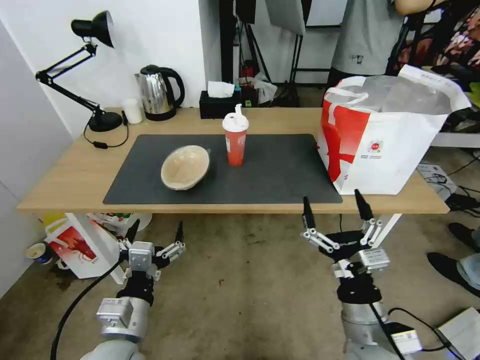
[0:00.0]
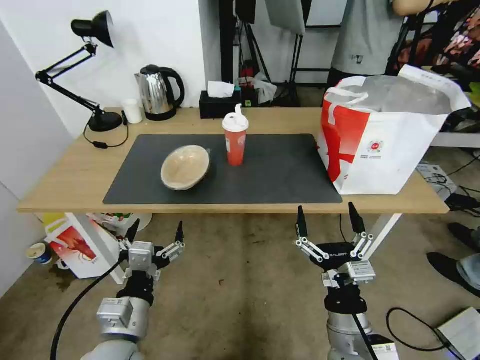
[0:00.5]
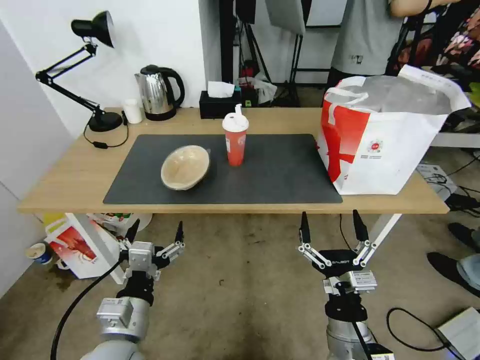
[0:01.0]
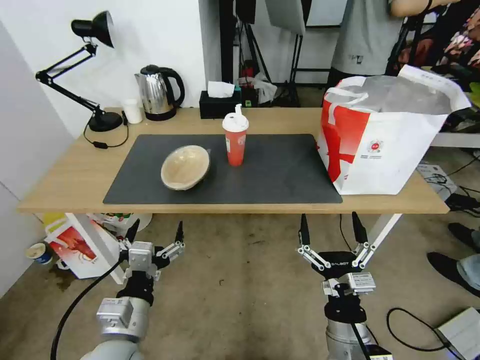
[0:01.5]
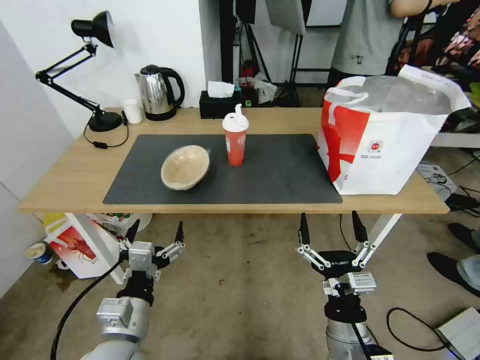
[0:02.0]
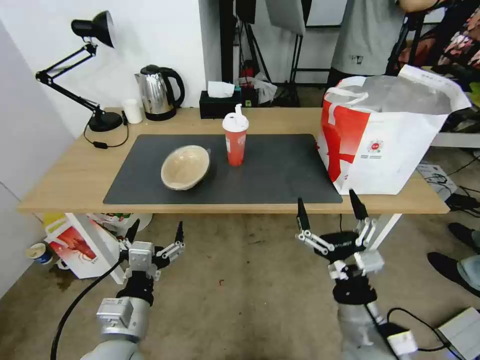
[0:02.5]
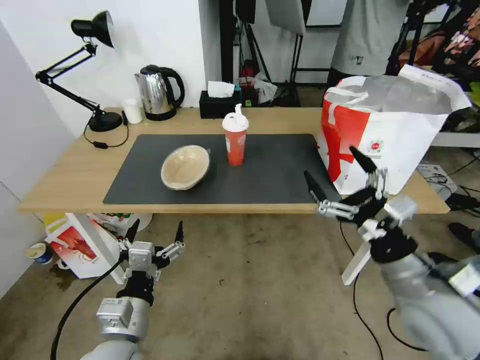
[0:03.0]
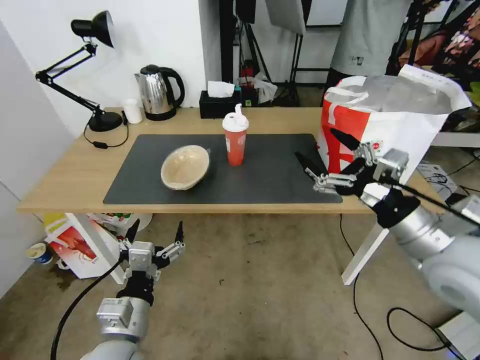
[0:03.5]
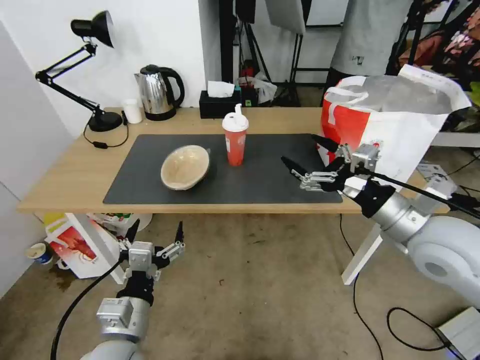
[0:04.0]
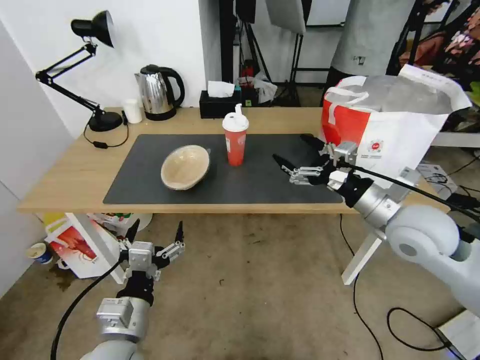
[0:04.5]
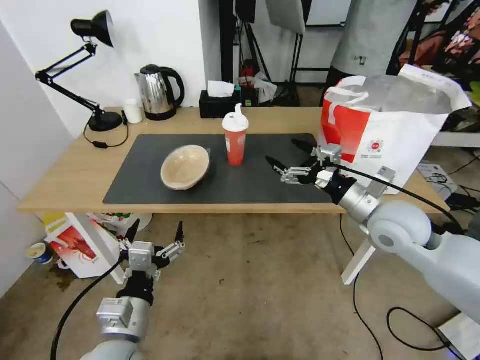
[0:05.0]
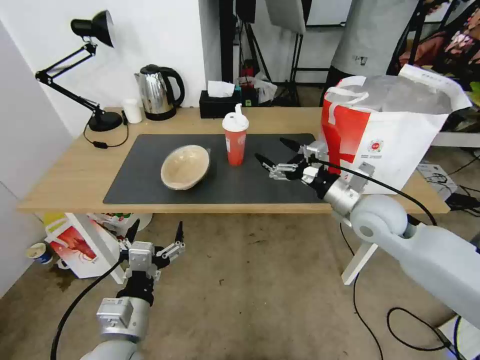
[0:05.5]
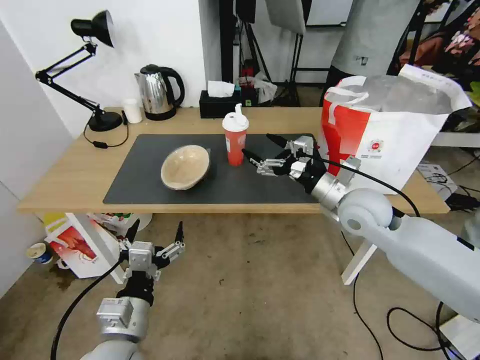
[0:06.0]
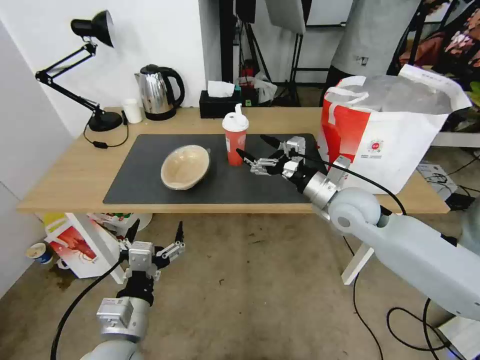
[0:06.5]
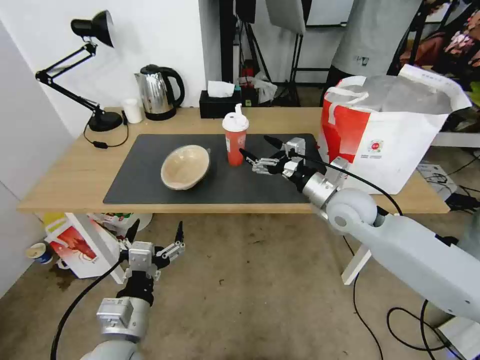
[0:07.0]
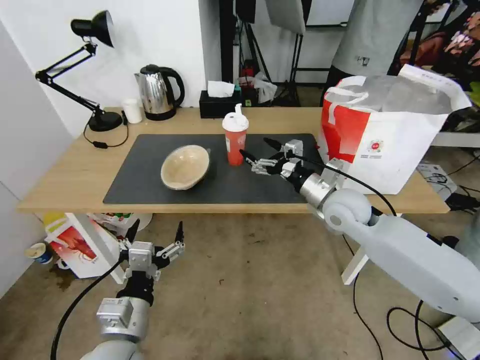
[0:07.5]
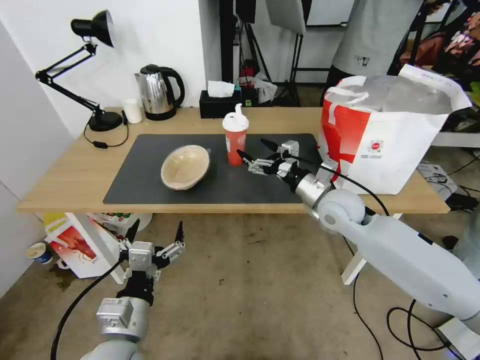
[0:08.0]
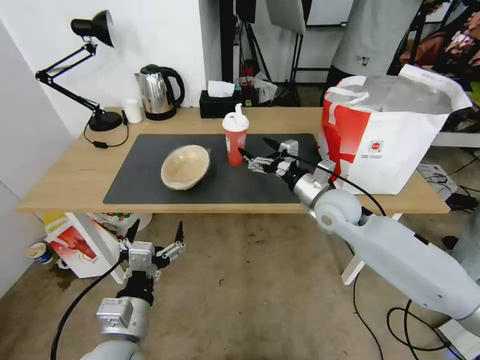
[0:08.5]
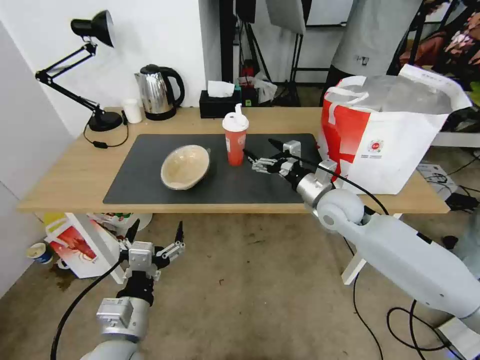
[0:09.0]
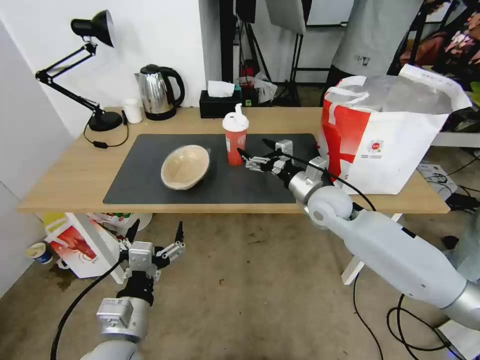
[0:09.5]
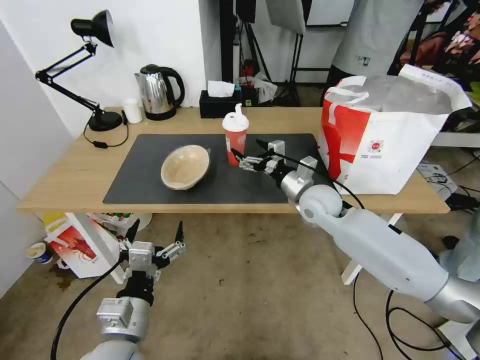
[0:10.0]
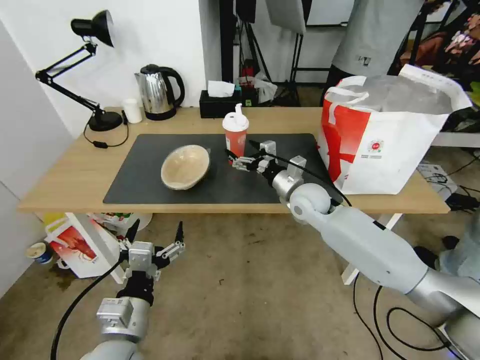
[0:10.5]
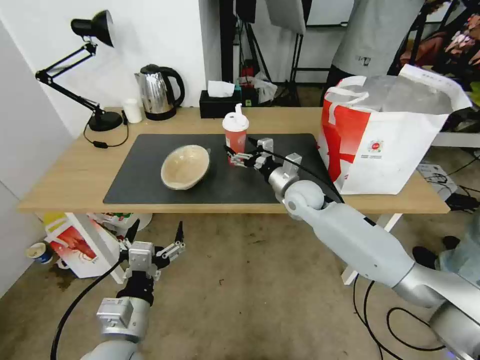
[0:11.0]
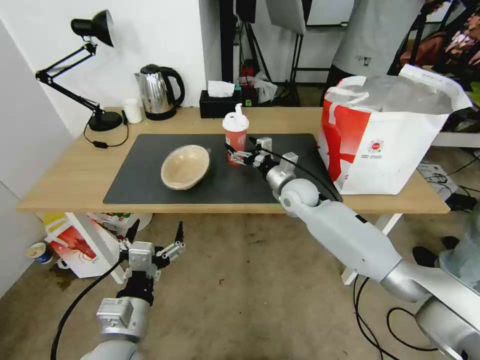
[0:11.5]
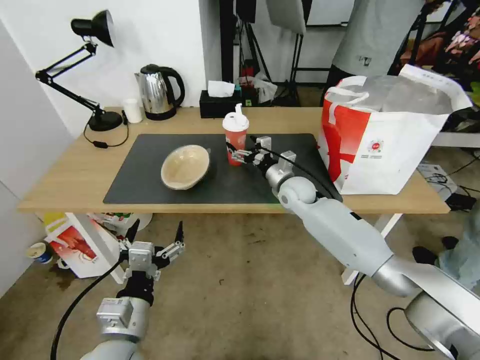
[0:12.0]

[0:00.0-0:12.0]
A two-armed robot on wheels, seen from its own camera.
Task of the whole recording: Pick up the trash from the table and place it into the takeout bag.
0.0 to 2.0 s: The right gripper ends up roughly 5 cm from where it was.
2.0 to 4.0 s: The right gripper shifts roughly 25 cm upward, forward and to the right.
4.0 to 6.0 s: The right gripper moves forward, to the left and downward, approximately 15 cm.
6.0 to 8.0 s: The right gripper moves some 5 cm.
8.0 to 10.0 s: The right gripper changes place by about 5 cm.
10.0 to 12.0 s: The right gripper moves forward, about 5 cm.

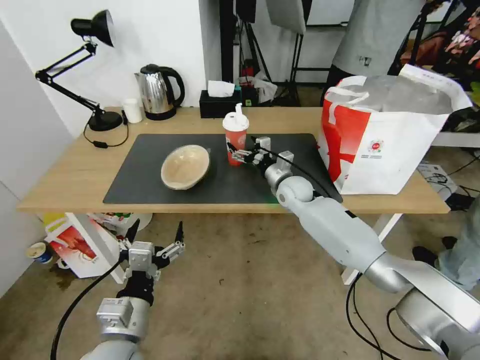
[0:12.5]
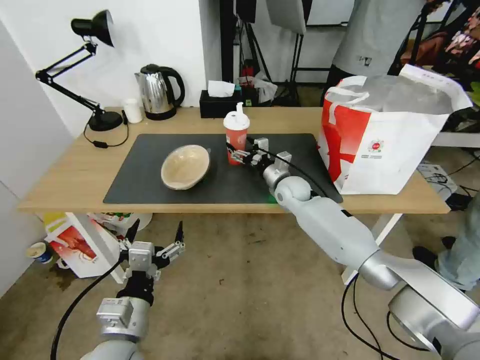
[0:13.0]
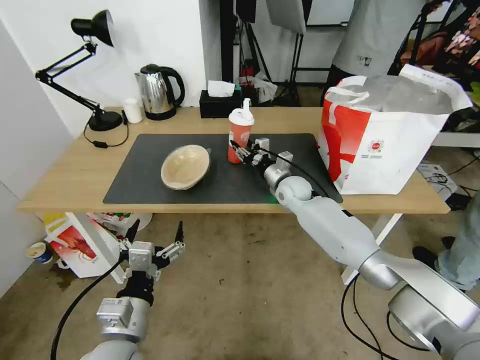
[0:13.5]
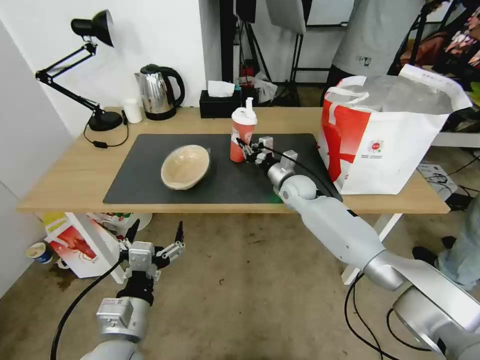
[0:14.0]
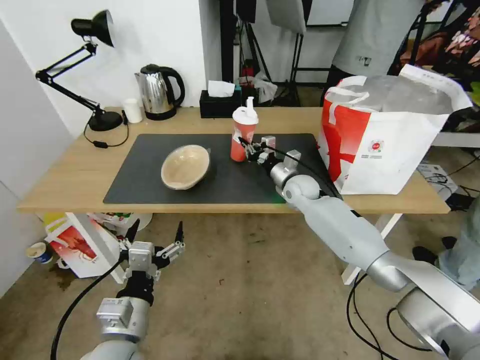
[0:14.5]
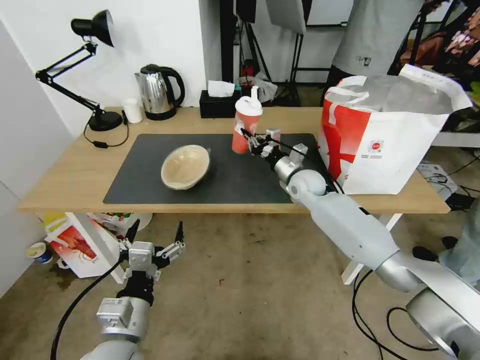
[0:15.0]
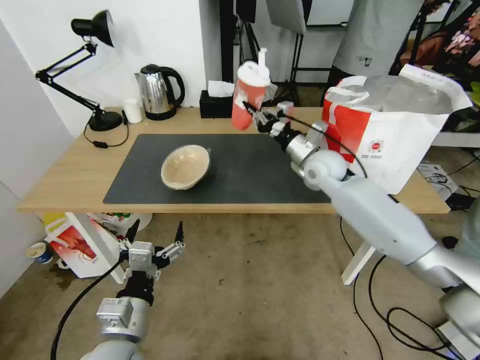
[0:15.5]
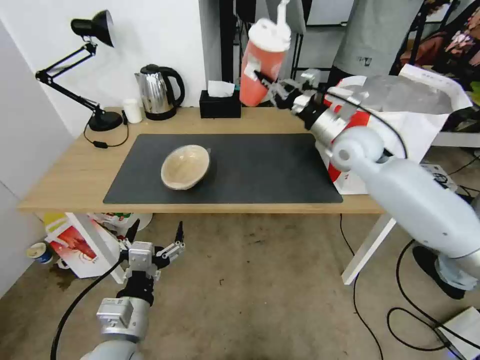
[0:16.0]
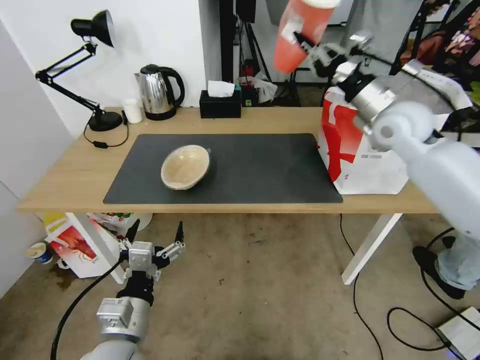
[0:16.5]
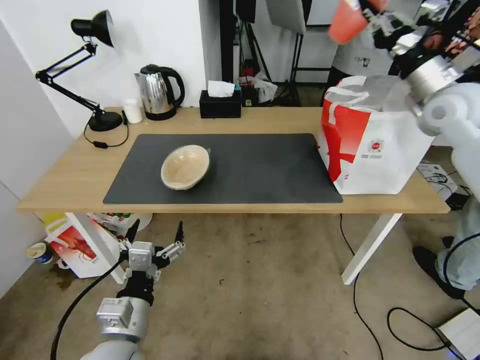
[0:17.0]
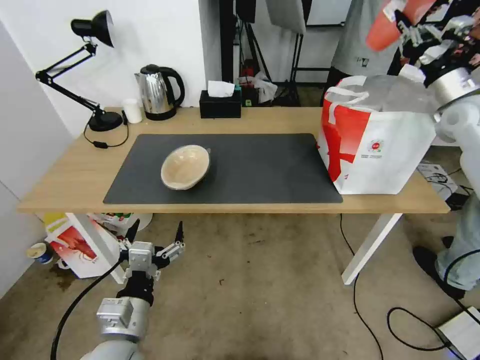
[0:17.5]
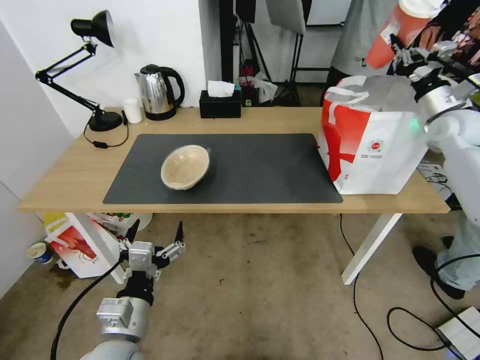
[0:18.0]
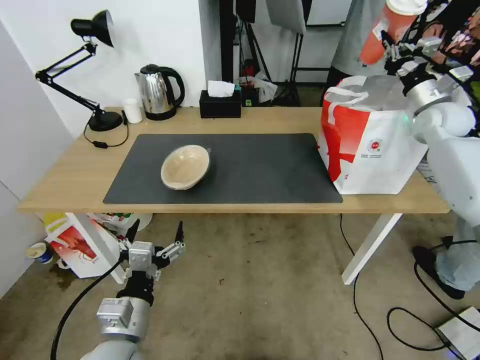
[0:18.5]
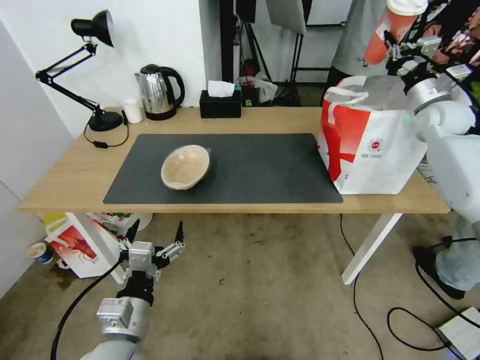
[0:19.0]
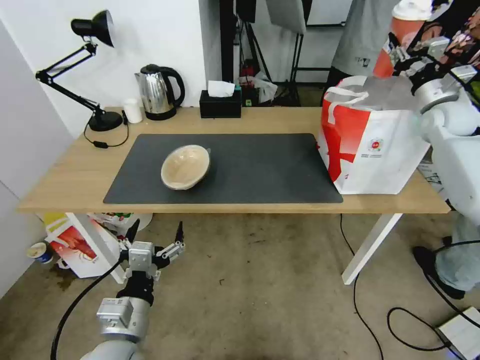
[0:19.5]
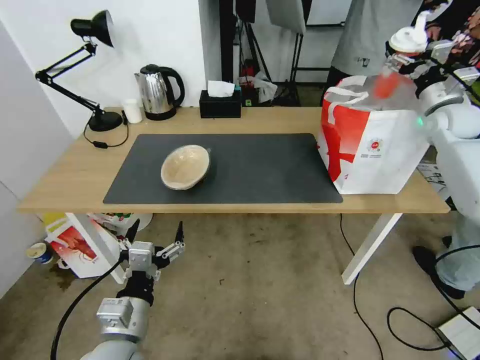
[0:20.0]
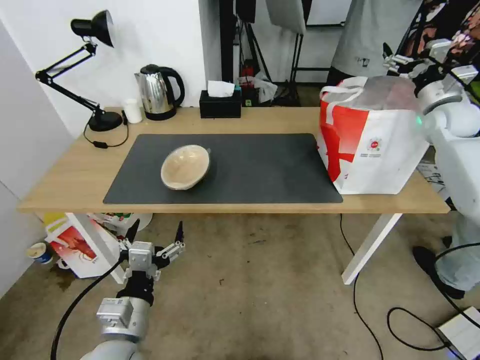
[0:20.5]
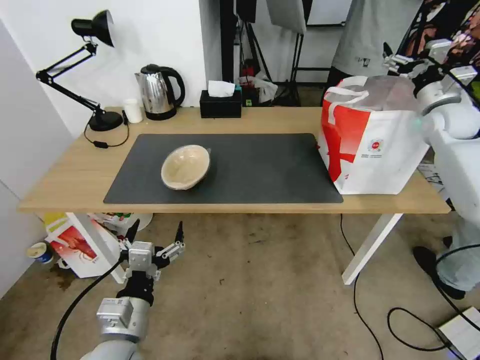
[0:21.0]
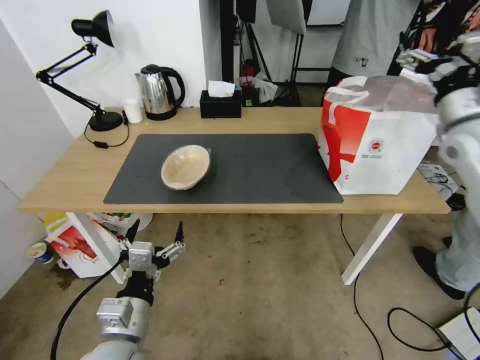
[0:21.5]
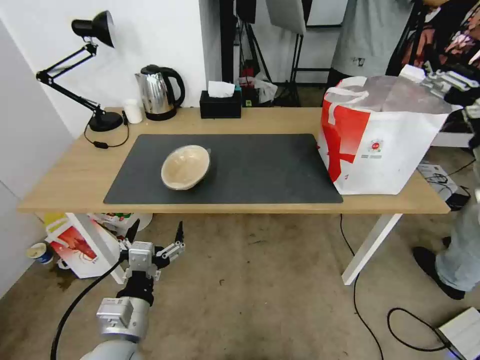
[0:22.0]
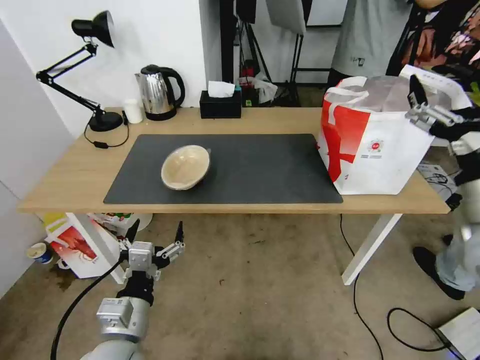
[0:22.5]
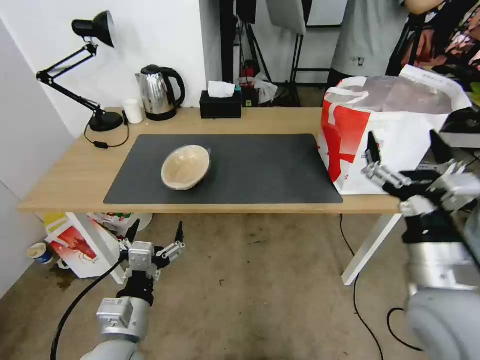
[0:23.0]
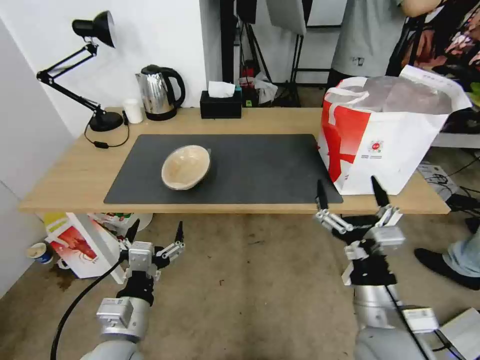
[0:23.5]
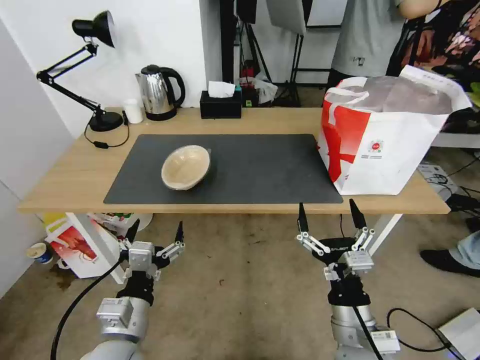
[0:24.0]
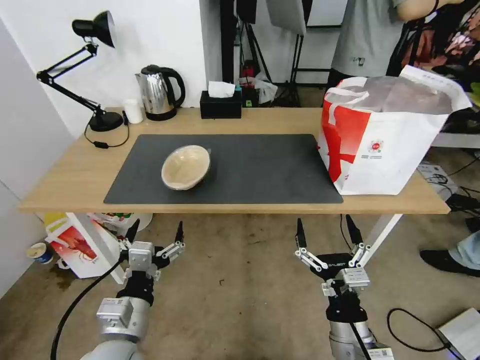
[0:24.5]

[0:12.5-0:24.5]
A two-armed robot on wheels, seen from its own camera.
Task of the whole recording: Pick up the trash from the table and place it into the takeout bag.
12.5 to 14.5 s: The right gripper closes.
14.5 to 16.5 s: The right gripper shifts about 30 cm upward and to the right.
16.5 to 18.5 s: The right gripper shifts roughly 20 cm to the right and forward.
18.5 to 20.5 s: The right gripper opens.
20.5 to 22.5 s: The right gripper heads backward and to the left, covering roughly 35 cm.
22.5 to 24.5 s: The right gripper heads downward, to the left and backward, covering some 30 cm.

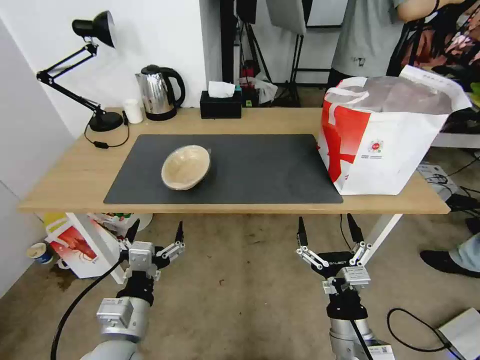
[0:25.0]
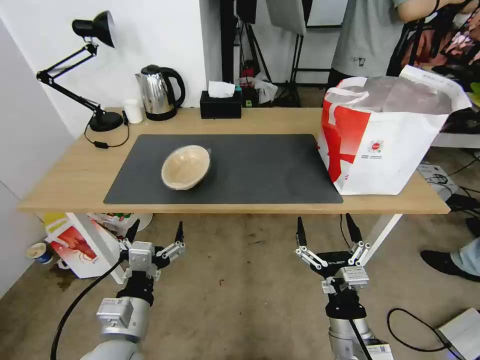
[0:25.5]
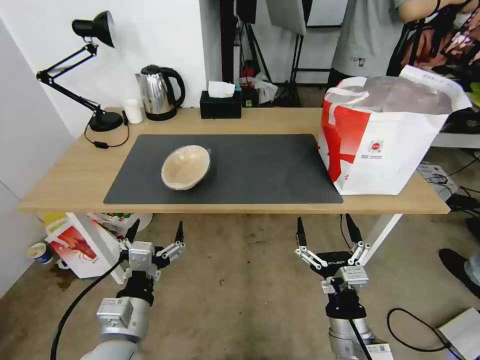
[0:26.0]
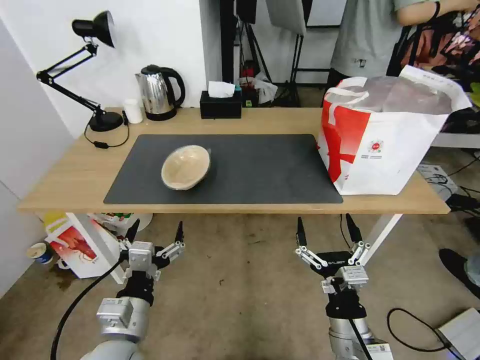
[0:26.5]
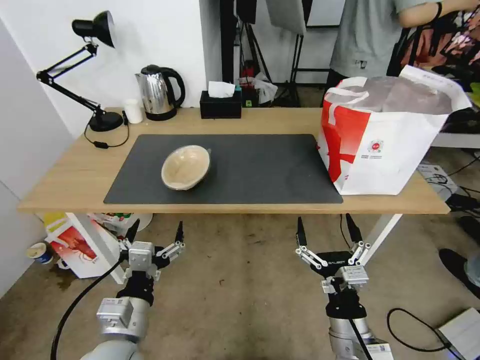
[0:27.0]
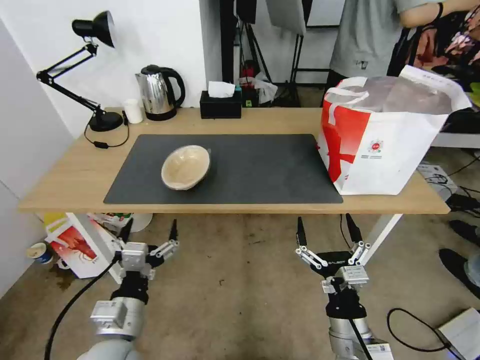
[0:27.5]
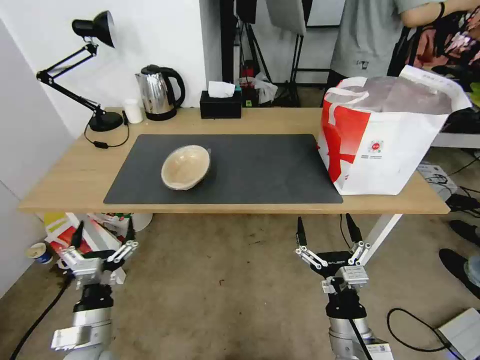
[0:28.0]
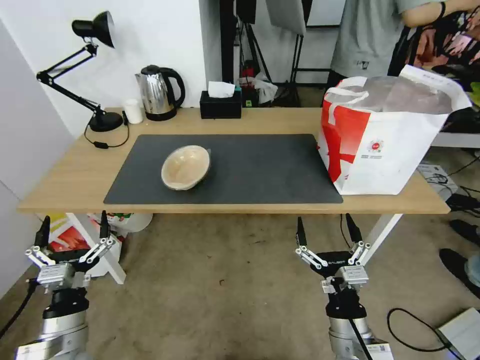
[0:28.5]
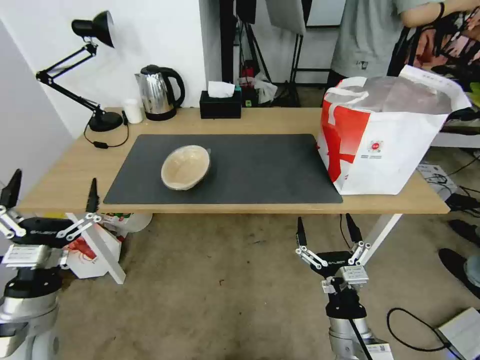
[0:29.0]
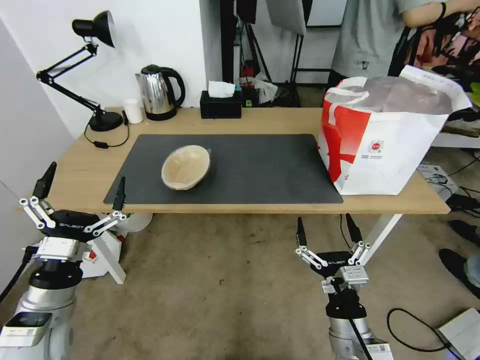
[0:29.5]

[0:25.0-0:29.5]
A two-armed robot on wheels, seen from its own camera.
Task of the whole recording: Pick up the trash from the table and place it into the takeout bag.
25.0 to 27.0 s: Both grippers stay put.
27.0 to 29.5 s: The left gripper shifts approximately 10 cm to the left.
